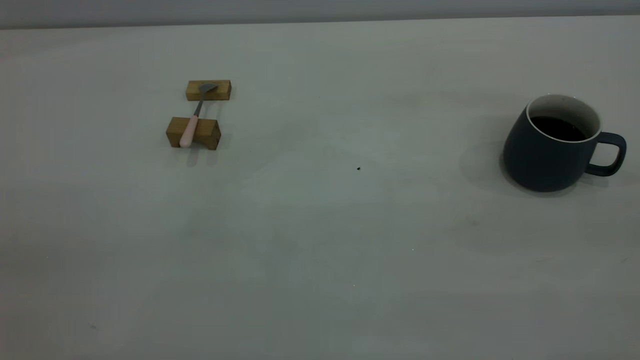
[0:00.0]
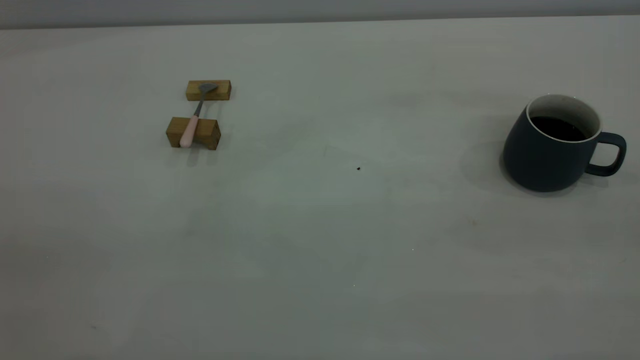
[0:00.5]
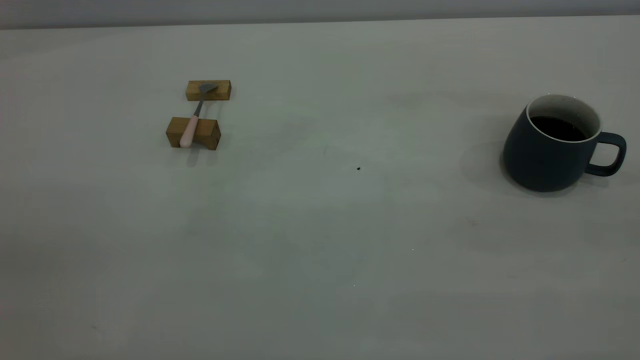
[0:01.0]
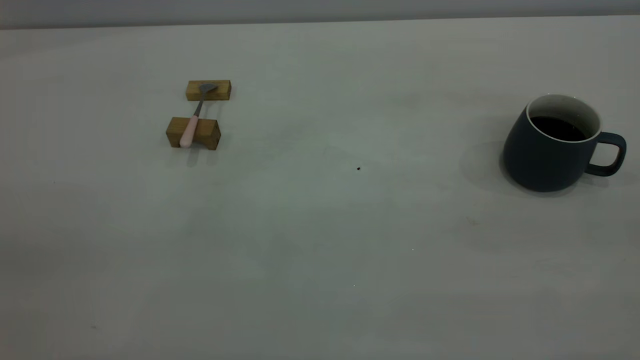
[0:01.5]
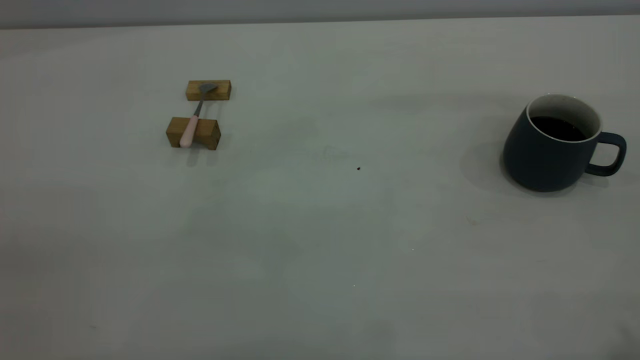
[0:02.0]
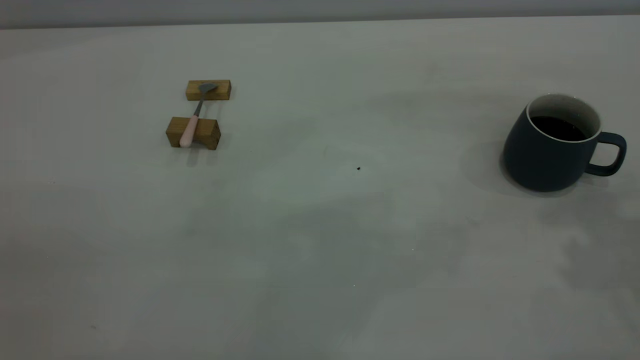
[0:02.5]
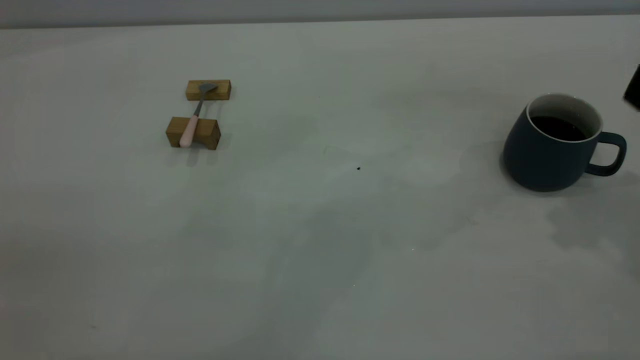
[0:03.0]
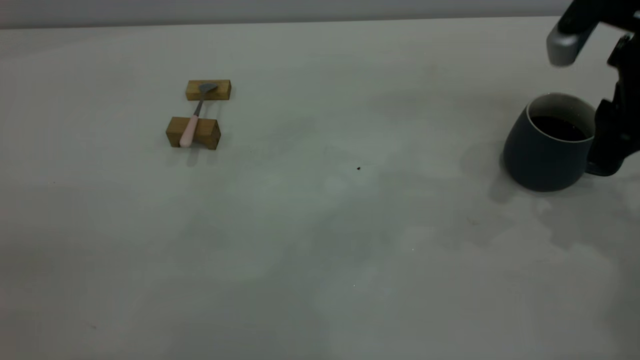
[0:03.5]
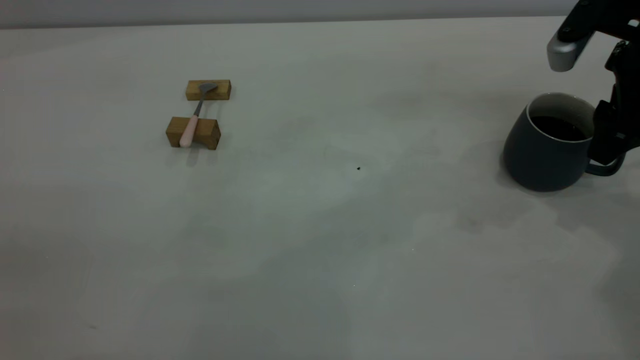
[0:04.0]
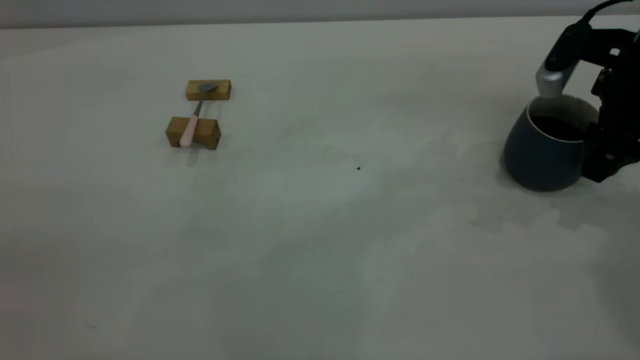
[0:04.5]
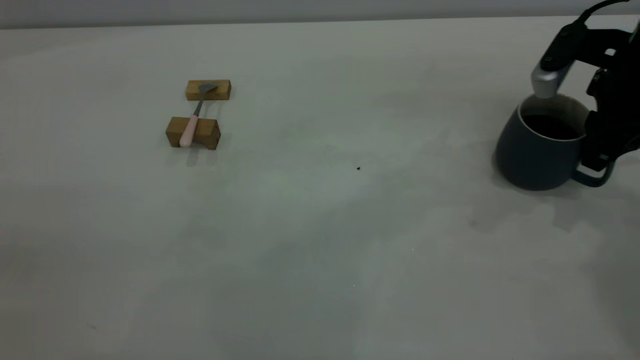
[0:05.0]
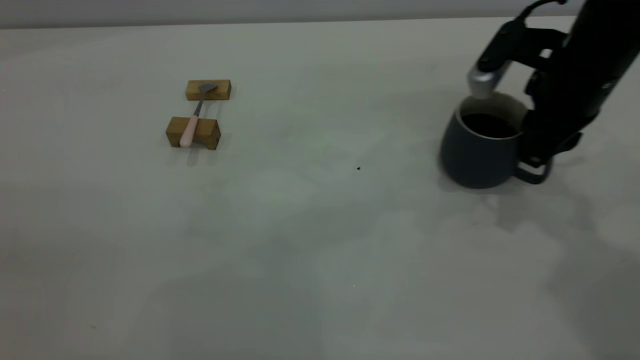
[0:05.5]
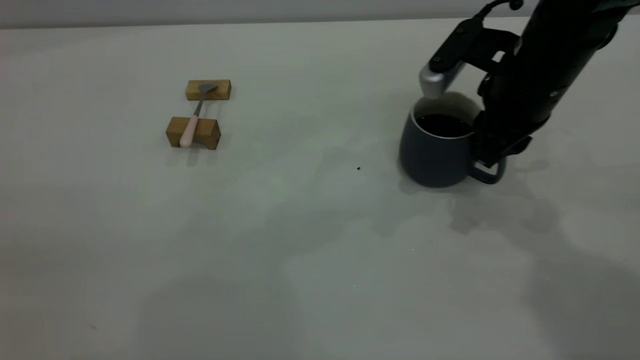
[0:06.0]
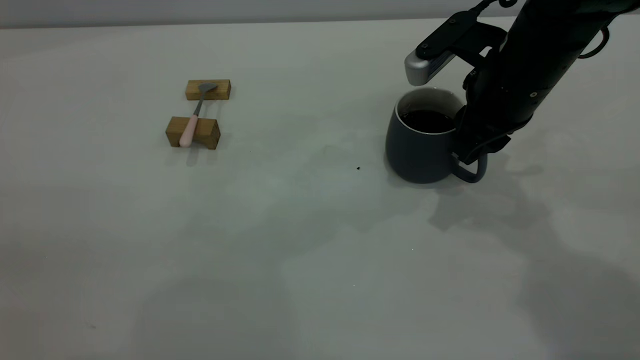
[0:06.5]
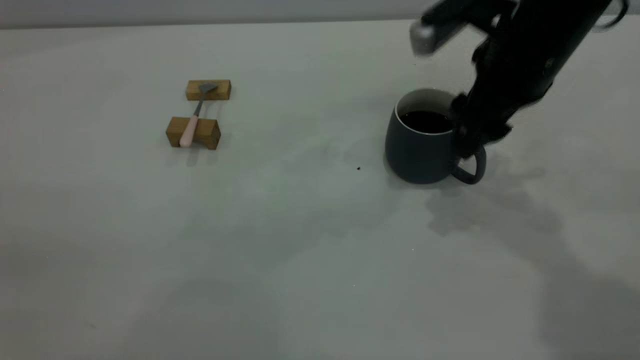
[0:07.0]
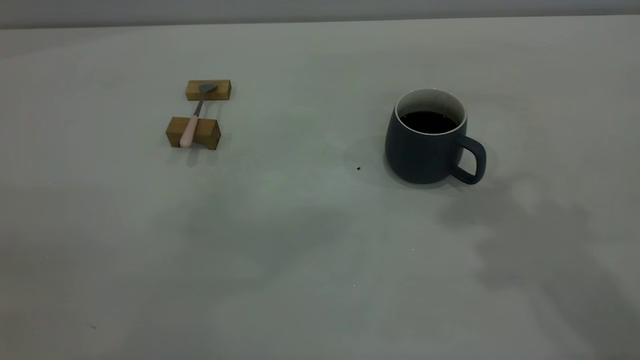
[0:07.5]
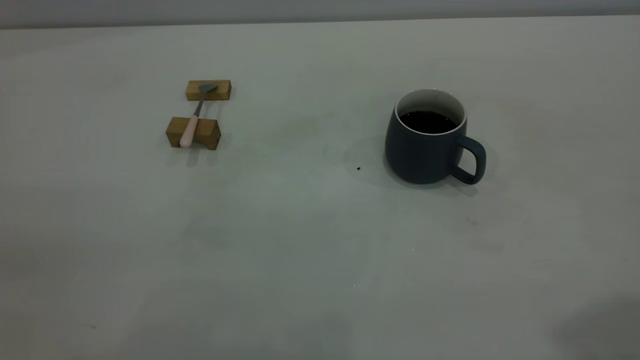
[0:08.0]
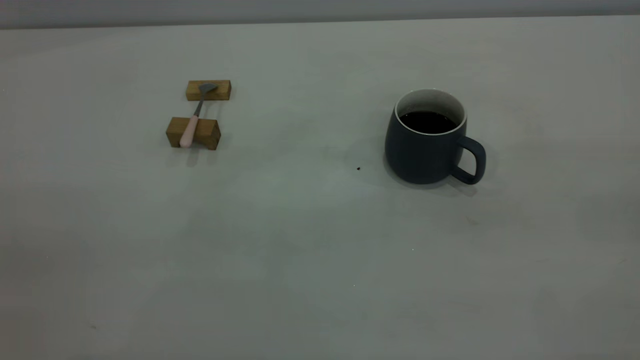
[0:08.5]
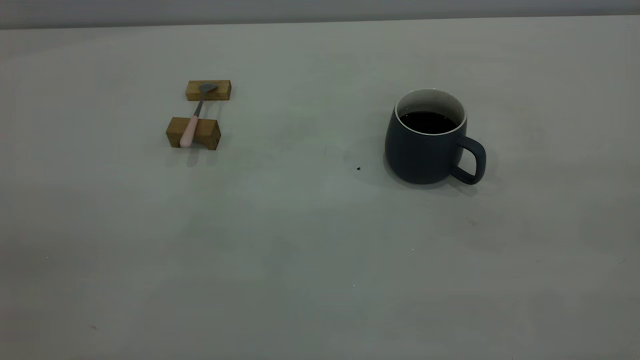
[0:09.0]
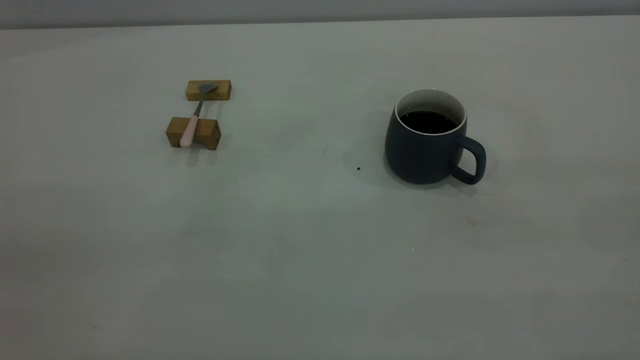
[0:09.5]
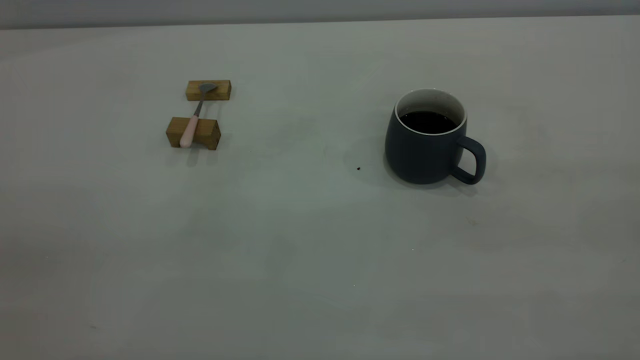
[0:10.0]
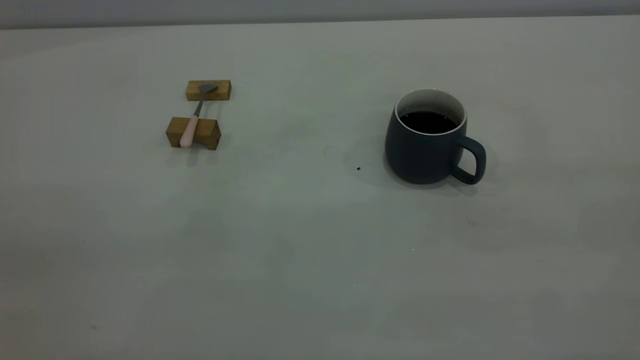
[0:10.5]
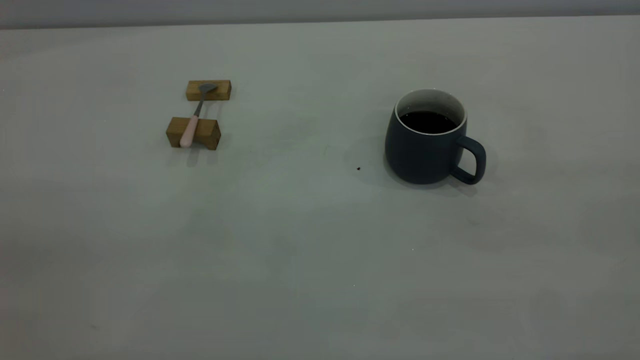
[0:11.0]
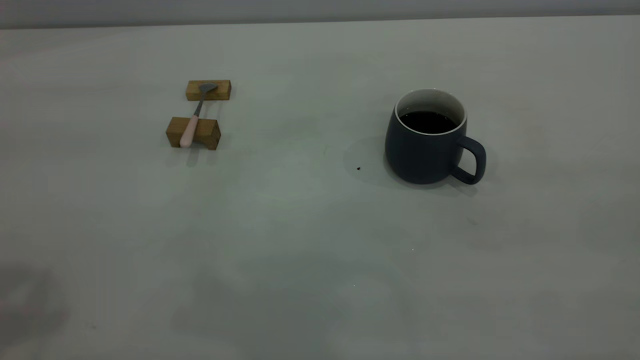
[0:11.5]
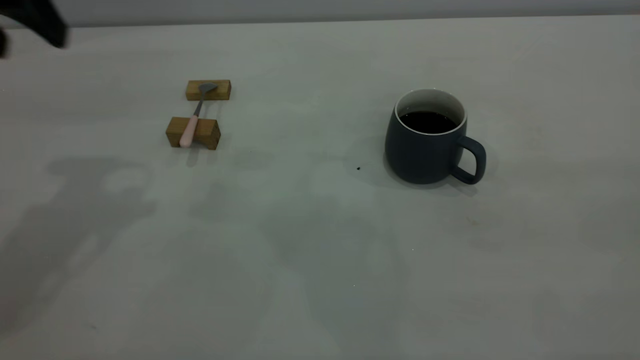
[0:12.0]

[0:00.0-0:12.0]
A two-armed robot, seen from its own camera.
Step, 0:00.0 to 0:07.0: Move the cup with coffee to the center of view.
0:02.0 to 0:04.0: The right gripper goes roughly 35 cm forward and downward, and opens its fingers.
0:04.0 to 0:06.0: The right gripper heads to the left, covering approximately 10 cm, and closes.
0:06.0 to 0:08.0: The right gripper travels upward and backward by some 40 cm, and opens its fingers.
0:10.0 to 0:12.0: The left gripper heads forward, covering some 30 cm, and opens up.

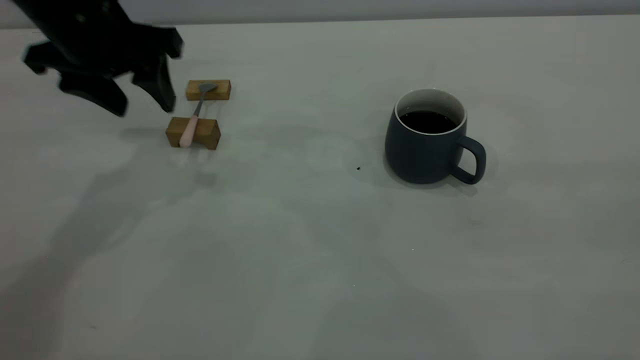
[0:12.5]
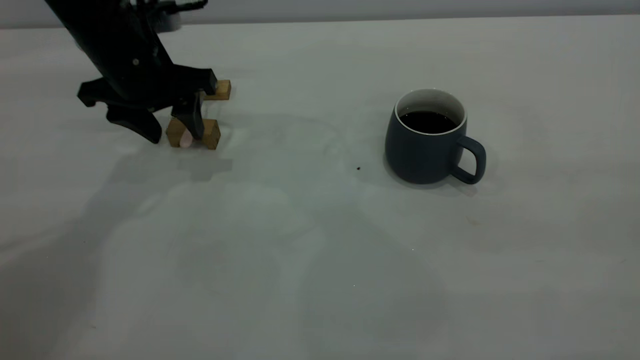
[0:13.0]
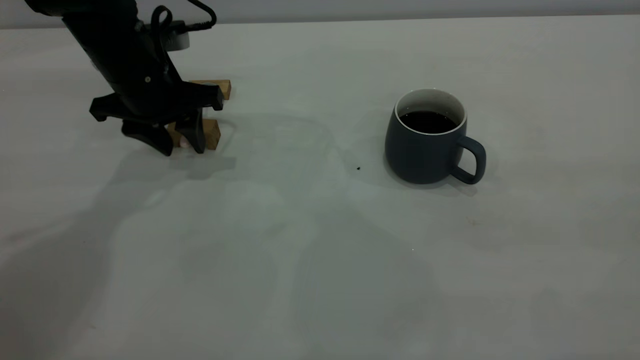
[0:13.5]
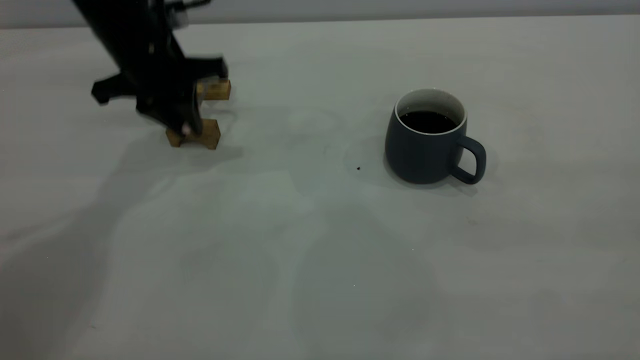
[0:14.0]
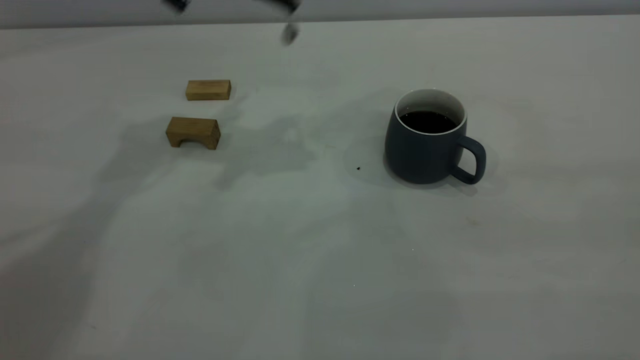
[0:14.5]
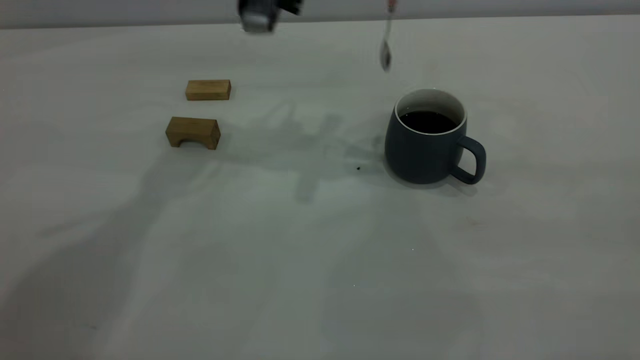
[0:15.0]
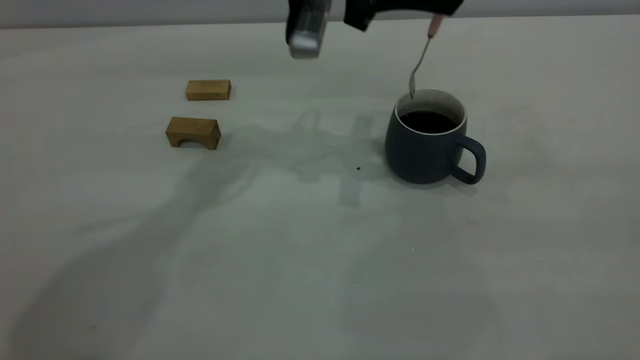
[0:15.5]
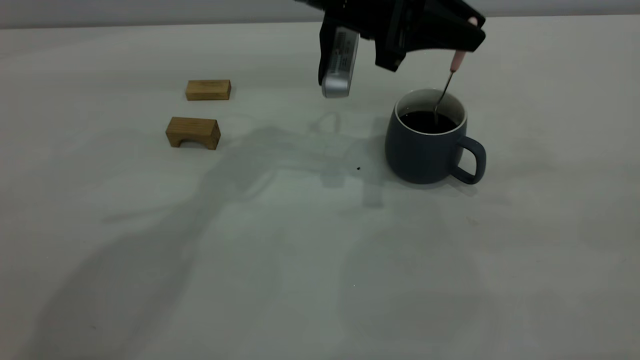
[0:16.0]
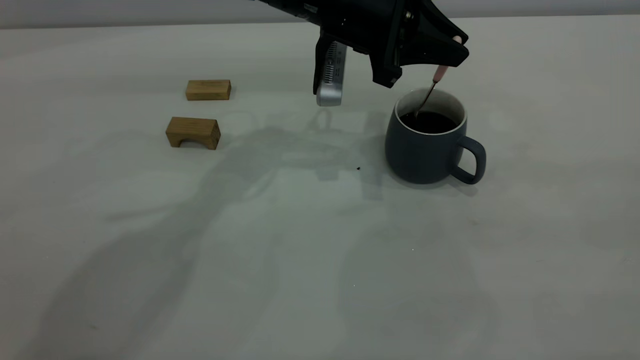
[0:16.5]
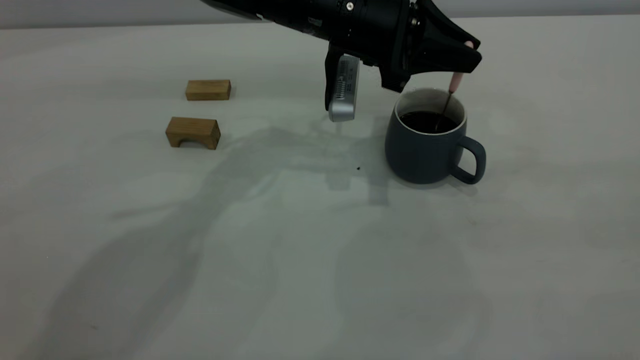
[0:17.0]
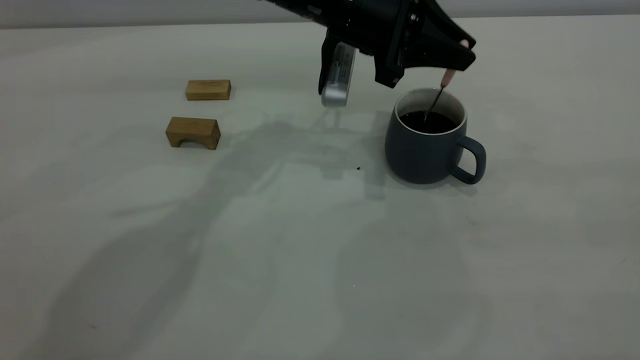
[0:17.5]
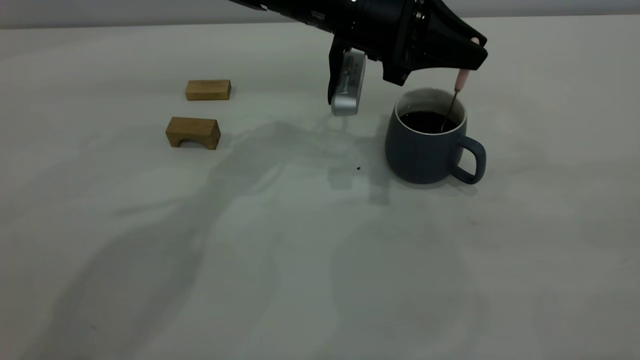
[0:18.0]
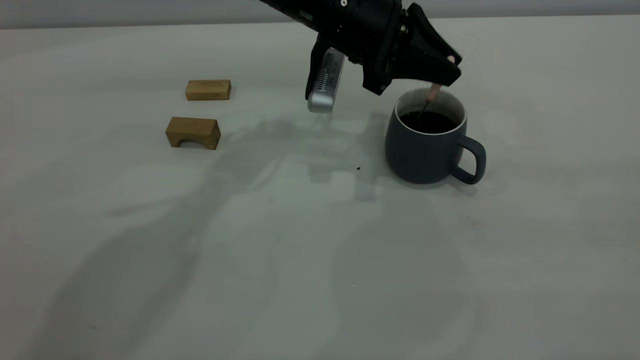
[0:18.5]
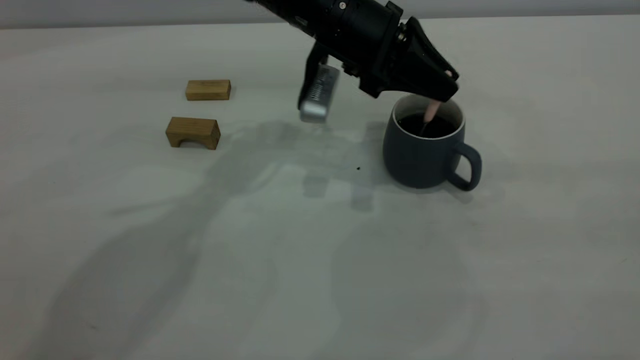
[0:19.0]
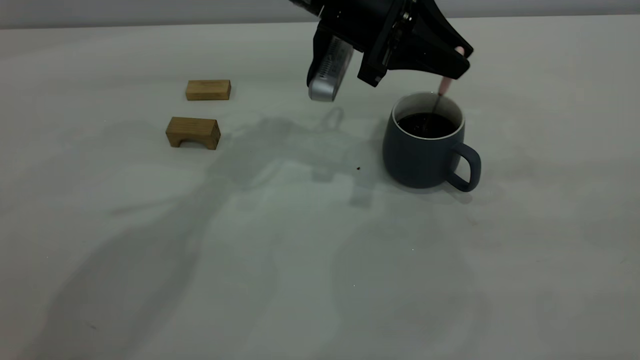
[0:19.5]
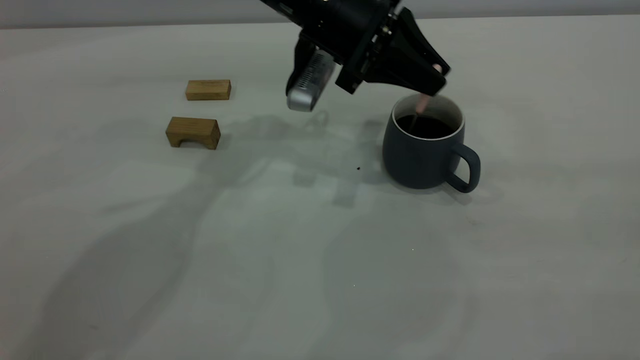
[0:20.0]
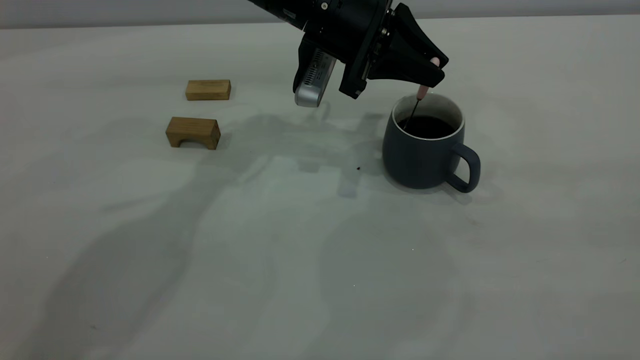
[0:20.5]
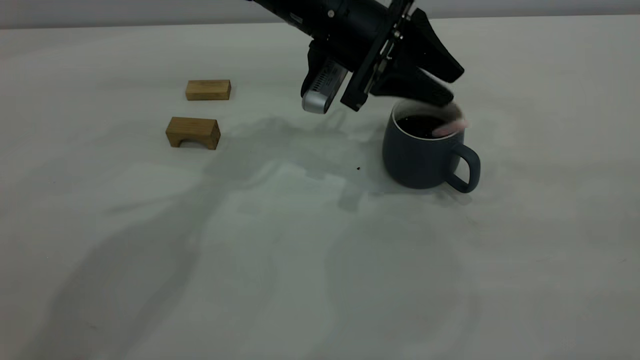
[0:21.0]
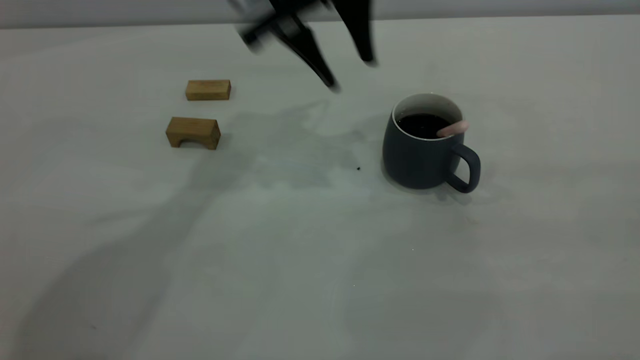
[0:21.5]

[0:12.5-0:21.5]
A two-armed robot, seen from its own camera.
Step, 0:14.5 to 0:21.0: Stir the coffee in the cup.
0:12.5 to 0:14.5: The left gripper goes approximately 10 cm to the right, upward and forward, and closes up.
0:14.5 to 0:17.0: The left gripper goes roughly 20 cm to the right and downward.
0:17.0 to 0:19.5: The grippers stay close to where they were, moving slightly.
0:19.5 to 0:21.5: The left gripper moves upward, roughly 10 cm, and opens its fingers.
